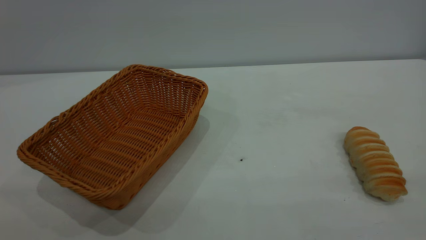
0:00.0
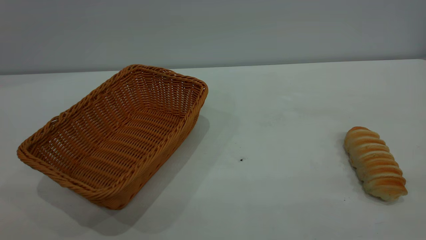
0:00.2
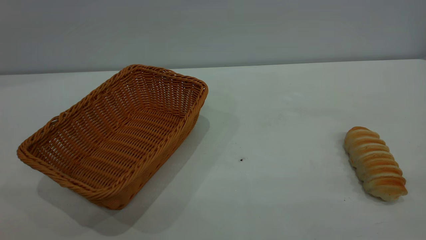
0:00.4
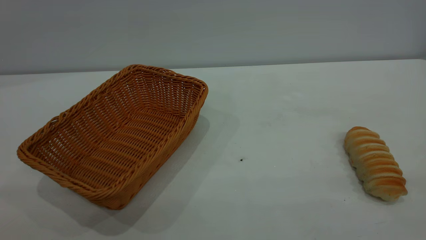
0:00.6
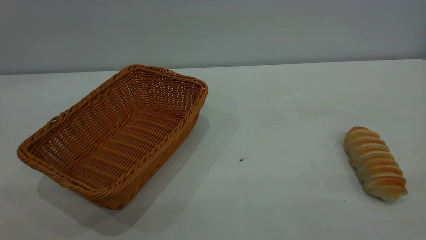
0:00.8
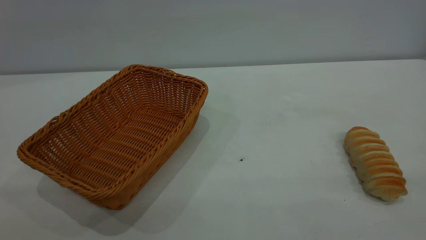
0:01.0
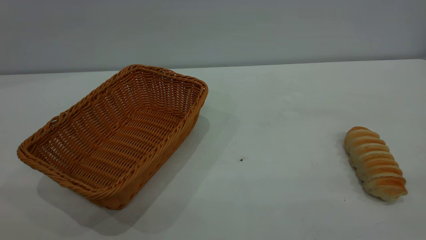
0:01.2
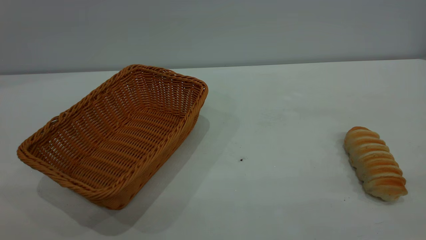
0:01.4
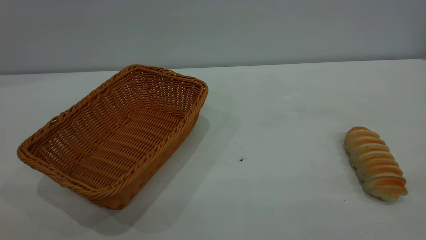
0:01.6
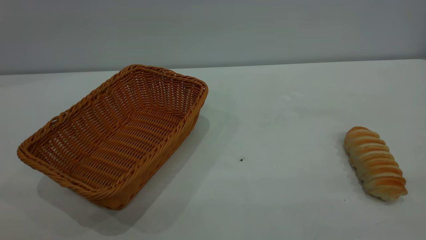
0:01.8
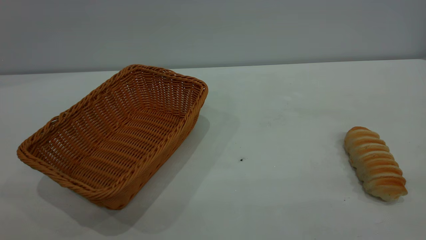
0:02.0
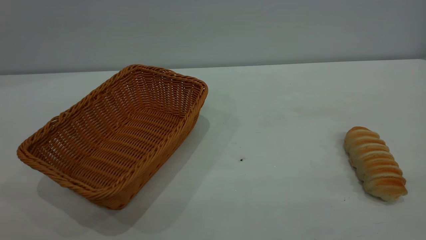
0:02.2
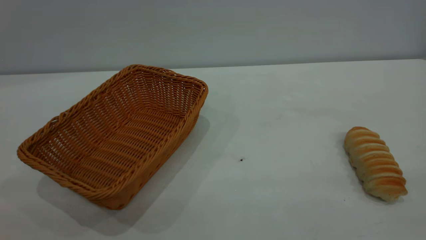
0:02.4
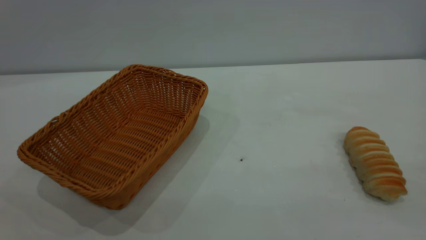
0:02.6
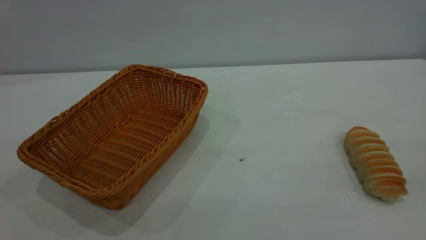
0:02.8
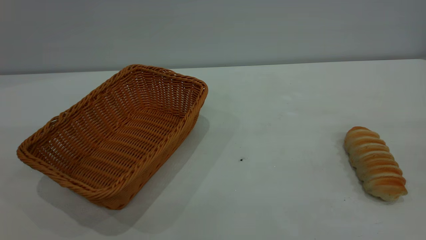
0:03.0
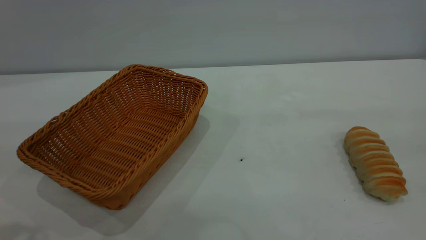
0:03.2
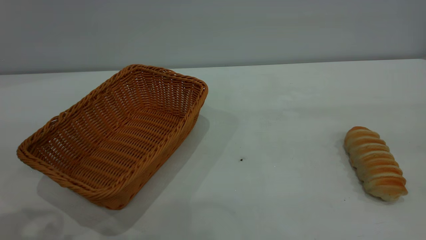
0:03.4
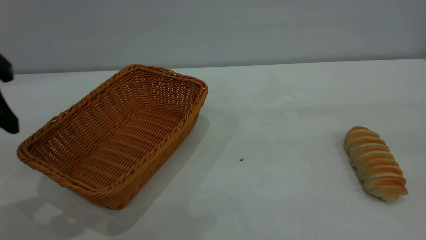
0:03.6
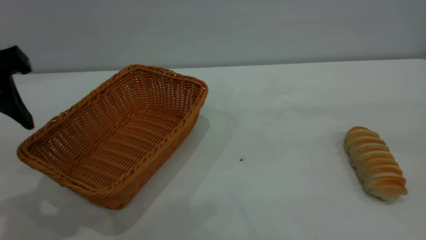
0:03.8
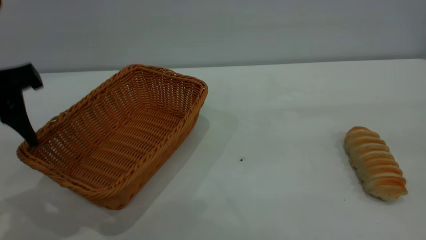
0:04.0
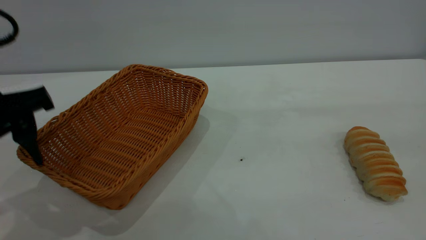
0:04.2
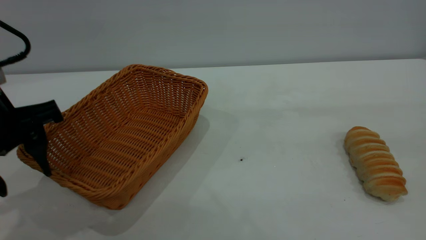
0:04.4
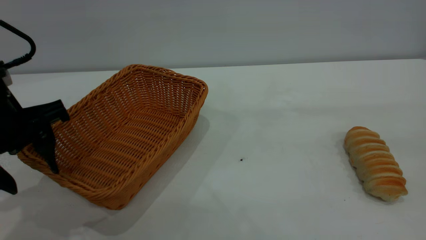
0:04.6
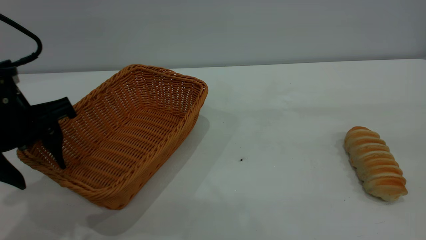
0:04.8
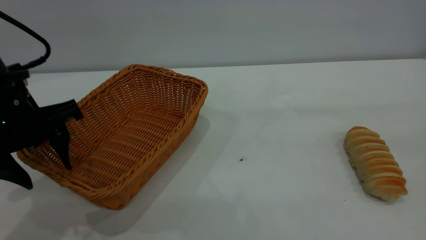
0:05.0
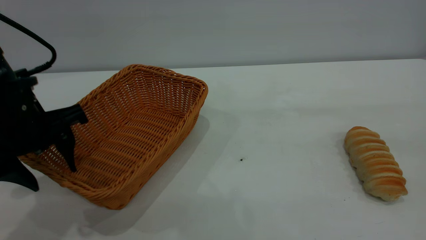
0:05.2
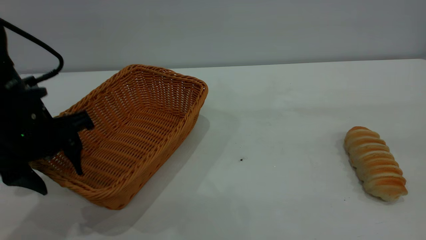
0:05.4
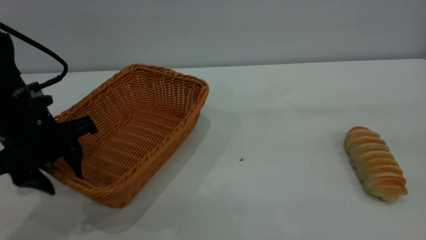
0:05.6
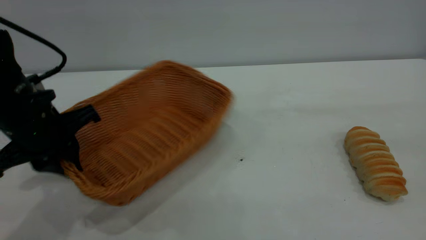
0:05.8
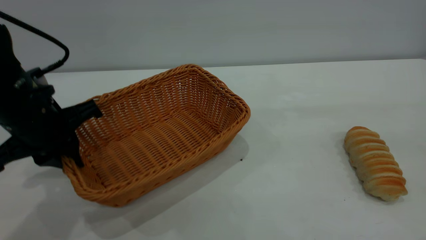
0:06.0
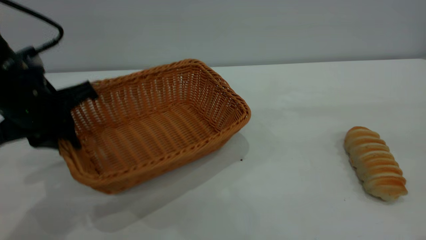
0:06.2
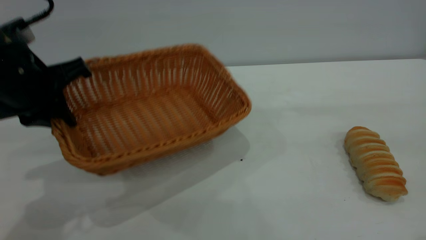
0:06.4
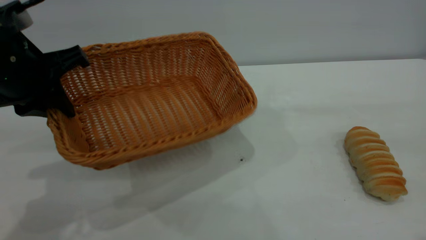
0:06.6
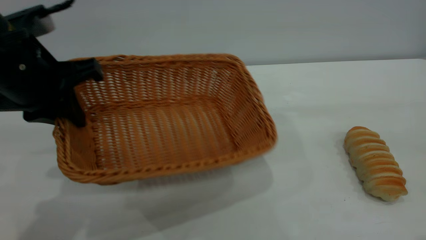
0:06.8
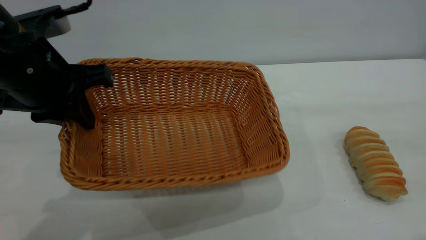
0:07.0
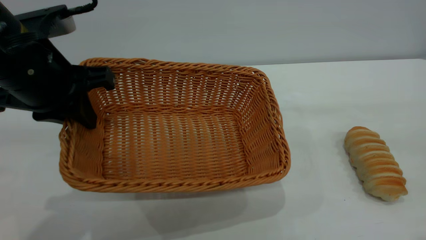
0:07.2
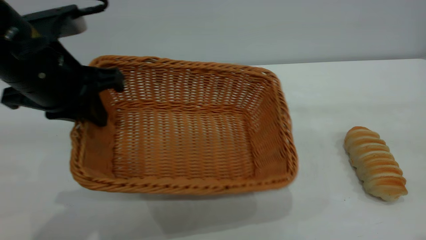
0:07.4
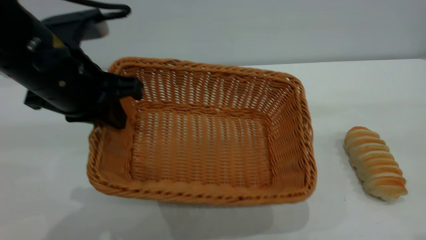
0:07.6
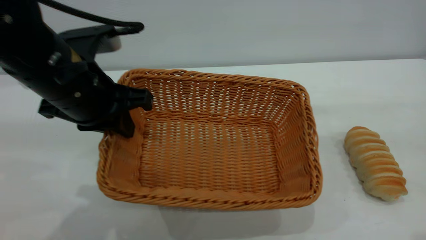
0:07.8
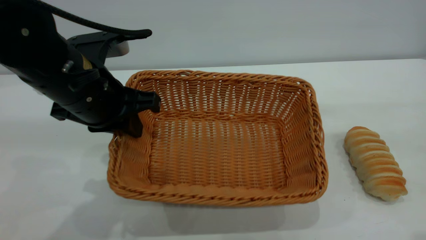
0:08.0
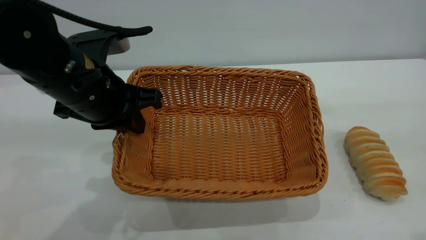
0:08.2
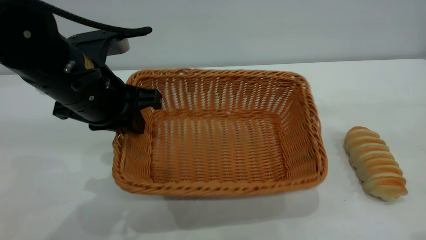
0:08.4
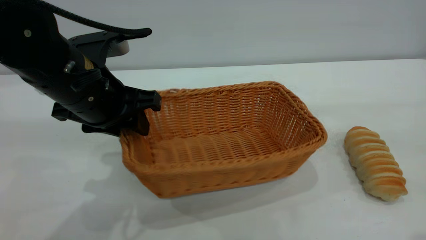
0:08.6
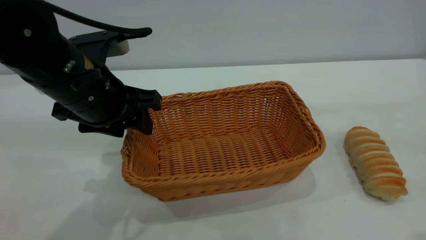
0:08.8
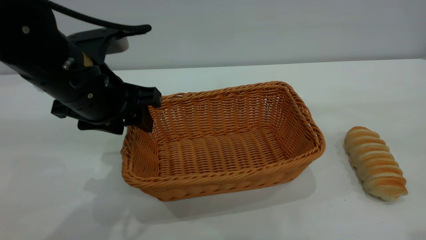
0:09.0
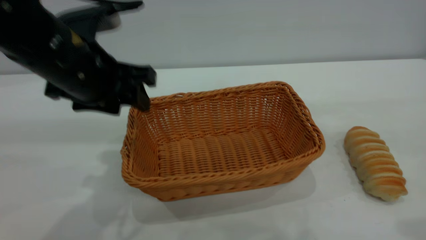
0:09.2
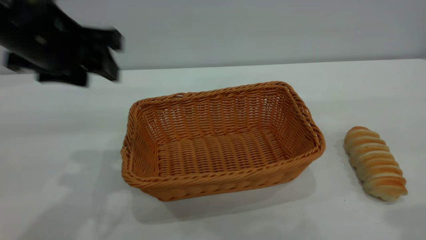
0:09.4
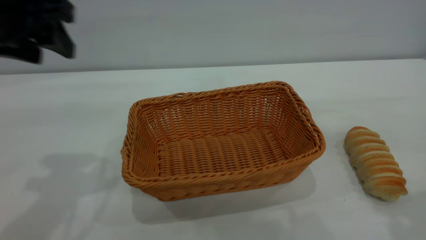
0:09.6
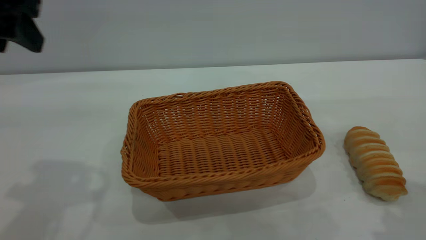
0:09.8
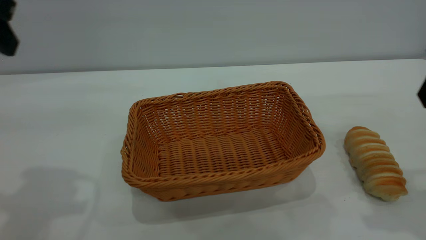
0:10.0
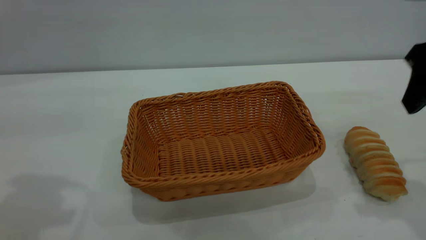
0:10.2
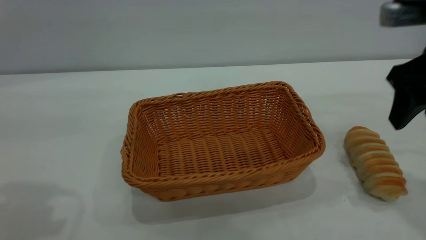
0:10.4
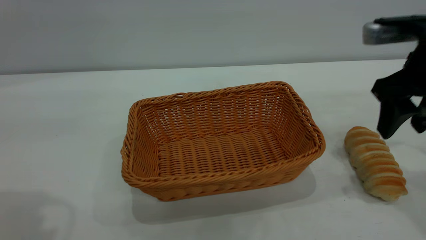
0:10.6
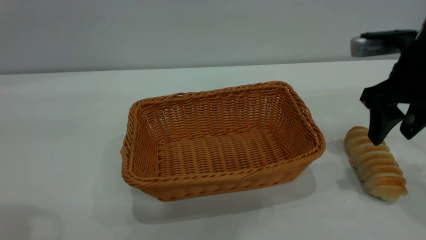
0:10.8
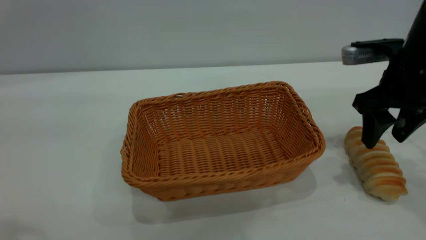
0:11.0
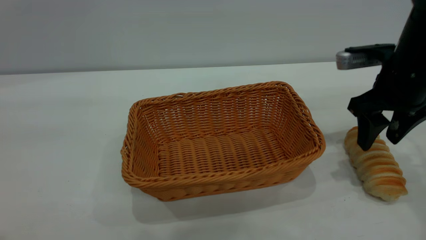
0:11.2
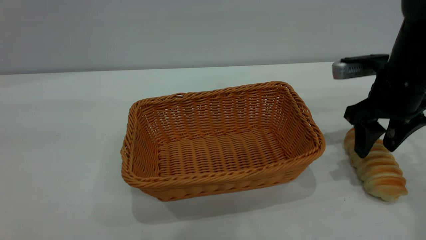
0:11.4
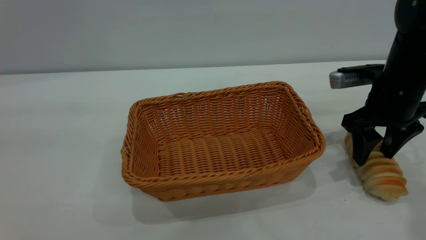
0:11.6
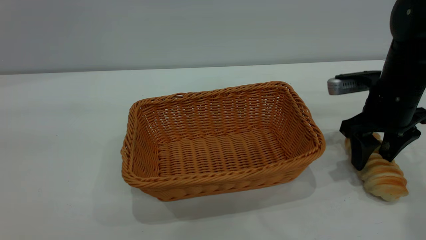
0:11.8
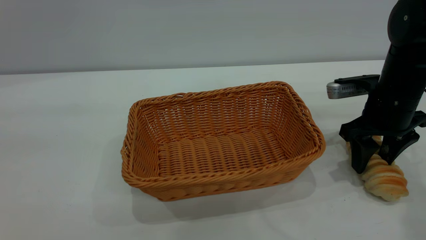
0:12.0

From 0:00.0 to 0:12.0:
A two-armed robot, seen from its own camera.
Task of the whole recording: One hand grasps the yellow basket and places it in the middle of the table, while the other hand picks up the long bread and puts it into the yellow basket.
Step, from 0:00.0 to 0:09.2: Move the basket to the center of view.
From 0:03.0 to 0:04.4: The left gripper shifts approximately 15 cm downward and forward.
From 0:04.4 to 0:06.0: The left gripper shifts by roughly 5 cm, and closes up.
From 0:06.0 to 0:07.6: The left gripper moves to the right, roughly 5 cm.
From 0:07.6 to 0:09.0: The left gripper opens its fingers.
From 0:09.0 to 0:10.4: The left gripper shifts approximately 20 cm upward, to the left and backward. The right gripper travels forward and downward by some 20 cm.
From 0:10.4 to 0:12.0: The left gripper heads backward and upward, covering roughly 15 cm; the right gripper travels downward and forward by roughly 15 cm.

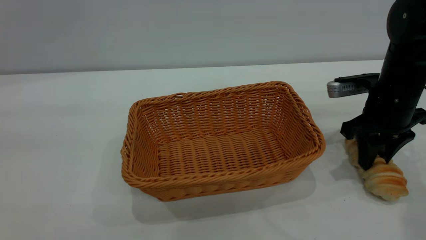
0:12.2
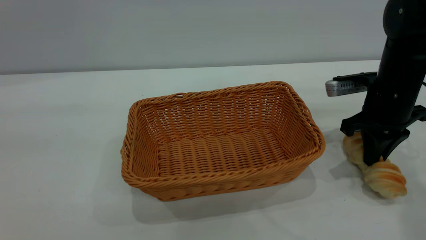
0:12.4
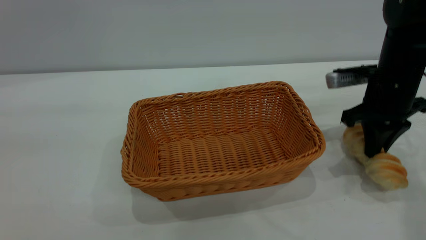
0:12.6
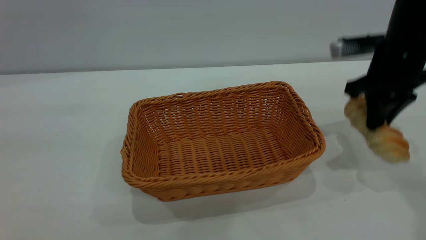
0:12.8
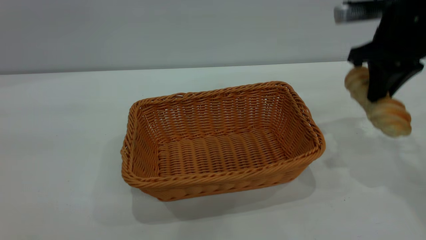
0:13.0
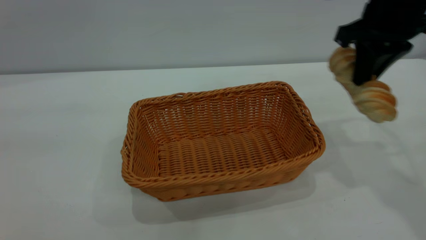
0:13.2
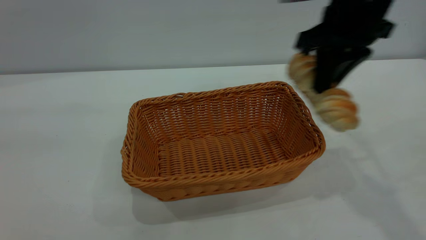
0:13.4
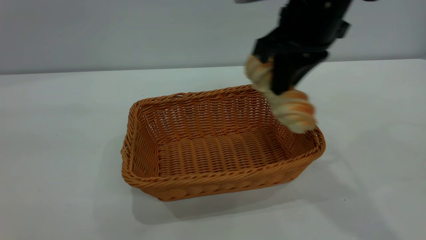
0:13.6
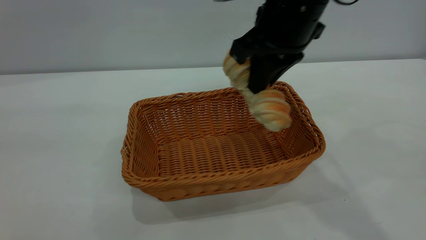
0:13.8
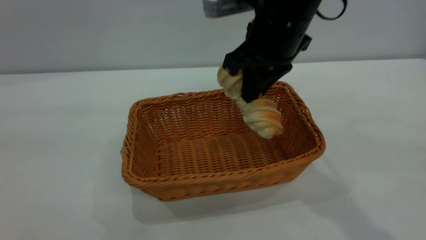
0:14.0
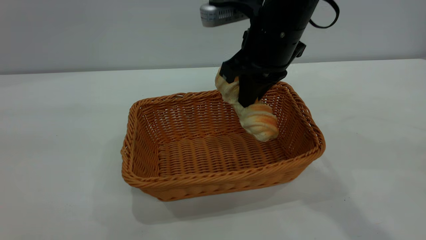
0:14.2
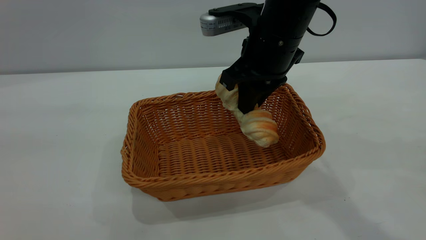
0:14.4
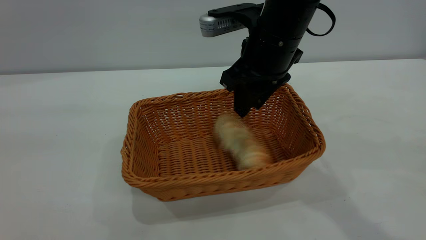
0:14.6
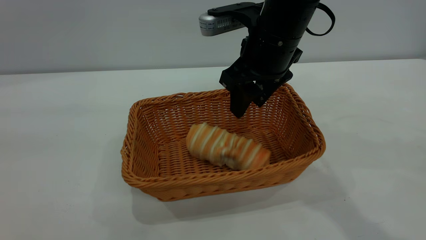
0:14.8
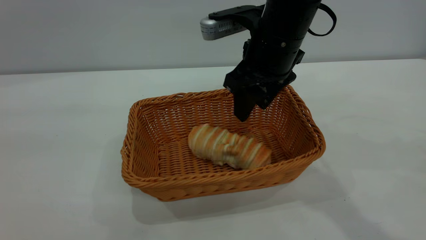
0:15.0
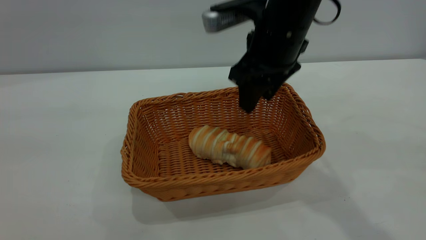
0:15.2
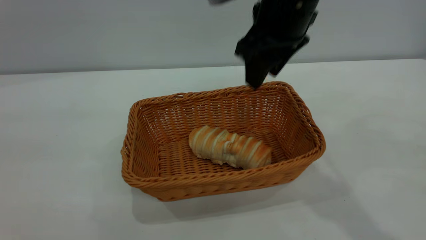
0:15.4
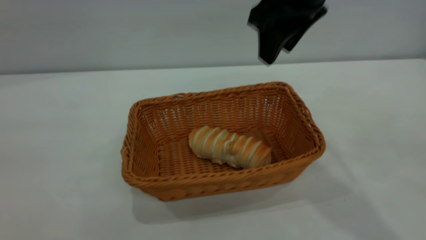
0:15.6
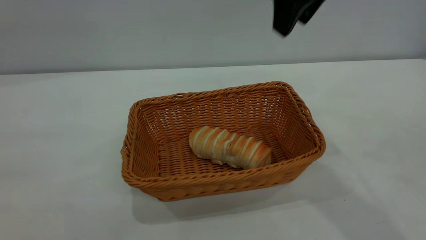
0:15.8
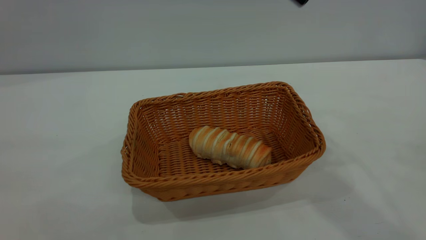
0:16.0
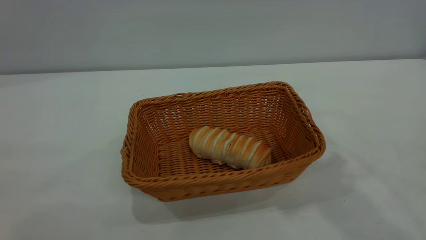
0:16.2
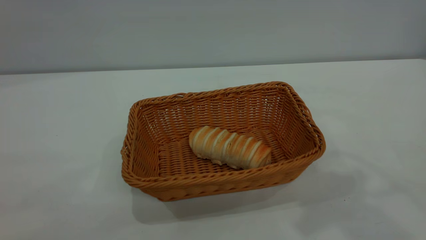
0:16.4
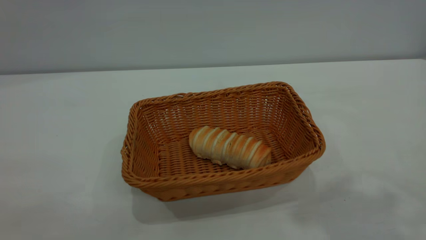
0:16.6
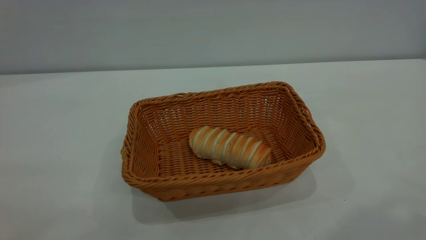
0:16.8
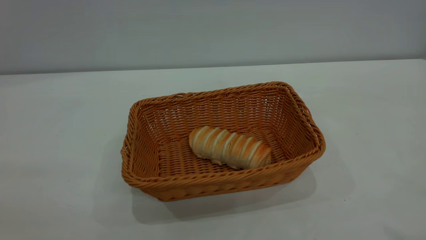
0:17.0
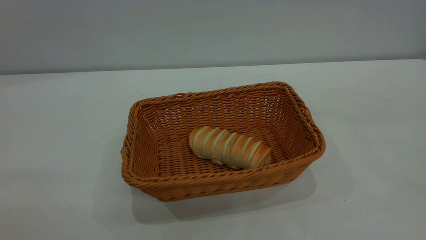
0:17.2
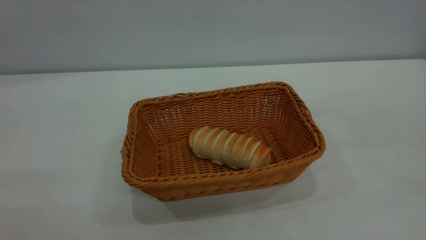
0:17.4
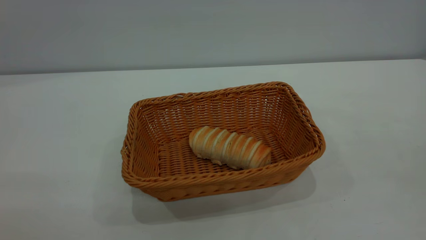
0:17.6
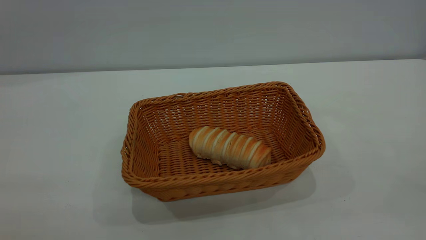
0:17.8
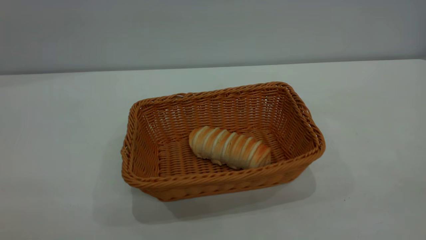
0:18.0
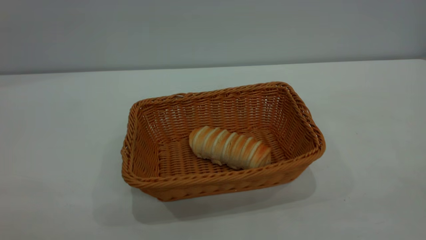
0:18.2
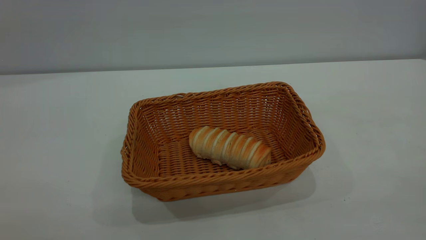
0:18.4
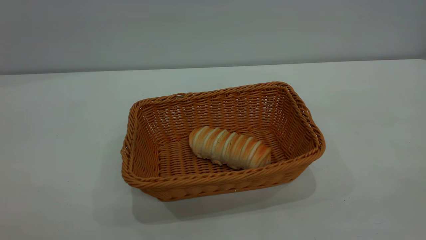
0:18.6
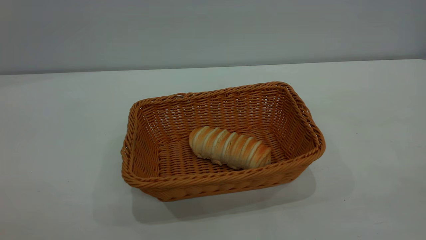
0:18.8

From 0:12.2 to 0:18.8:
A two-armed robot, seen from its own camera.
Task of the whole recording: One hand grasps the yellow basket and places it in the middle of the table, while the other hand picks up the long bread and puts it into the yellow basket.
Step, from 0:13.0 to 0:15.4: place the bread into the basket.
From 0:12.2 to 0:13.8: The right gripper is displaced to the left and upward by approximately 20 cm.
From 0:13.8 to 0:15.4: The right gripper opens.
From 0:15.4 to 0:17.2: The right gripper travels backward, upward and to the right by some 40 cm. The left gripper travels backward and downward by approximately 10 cm.
